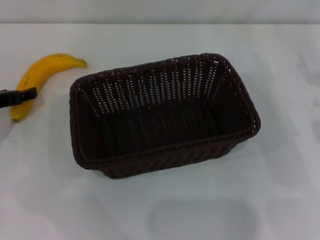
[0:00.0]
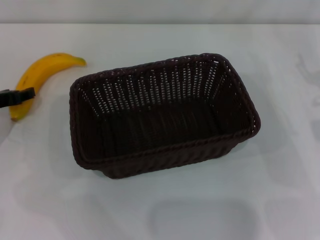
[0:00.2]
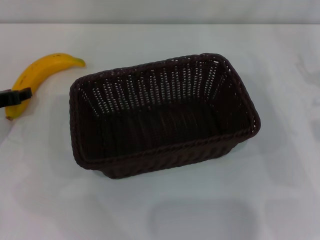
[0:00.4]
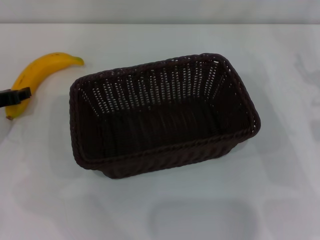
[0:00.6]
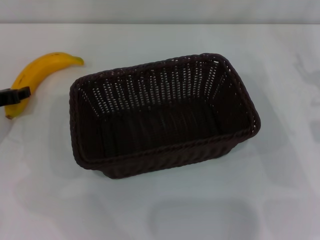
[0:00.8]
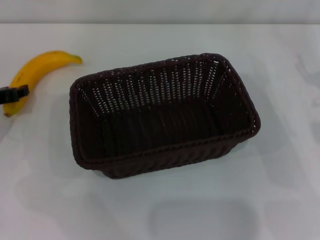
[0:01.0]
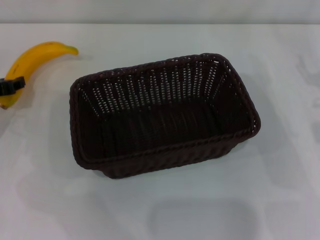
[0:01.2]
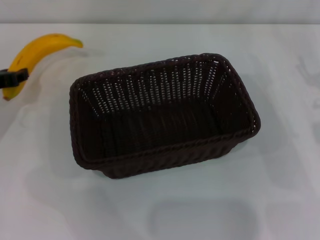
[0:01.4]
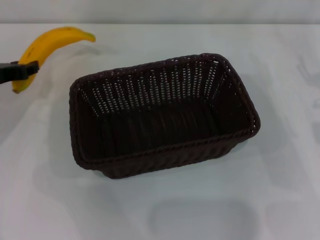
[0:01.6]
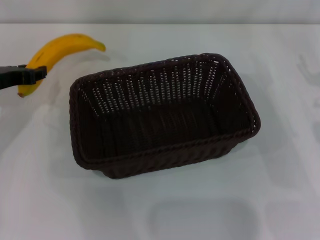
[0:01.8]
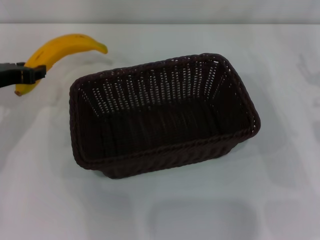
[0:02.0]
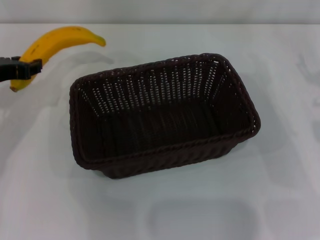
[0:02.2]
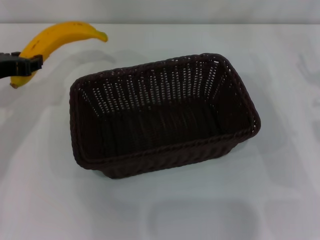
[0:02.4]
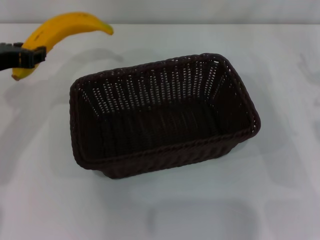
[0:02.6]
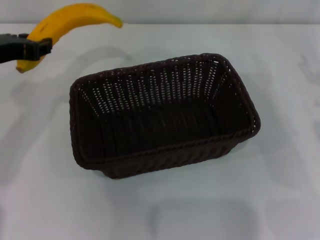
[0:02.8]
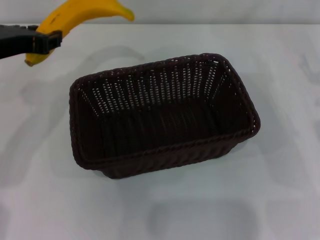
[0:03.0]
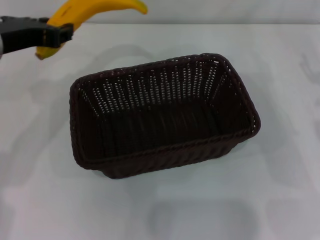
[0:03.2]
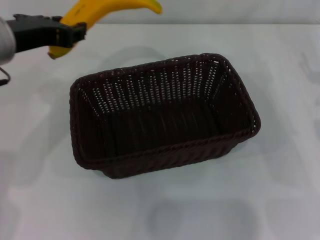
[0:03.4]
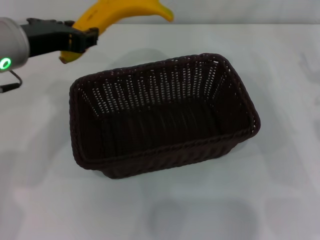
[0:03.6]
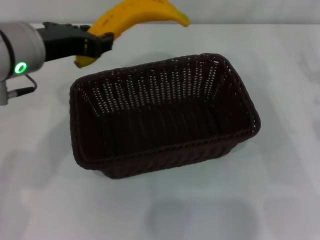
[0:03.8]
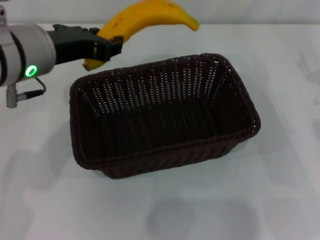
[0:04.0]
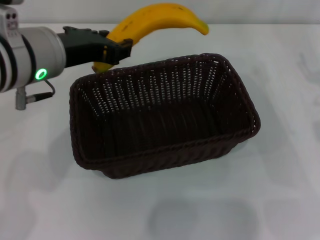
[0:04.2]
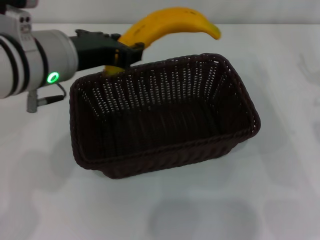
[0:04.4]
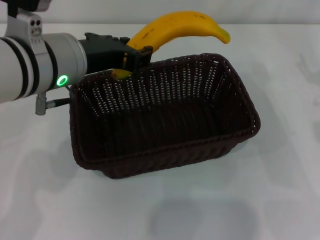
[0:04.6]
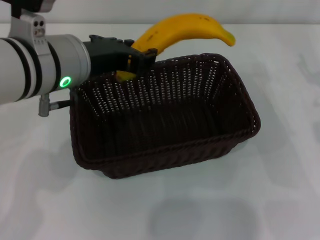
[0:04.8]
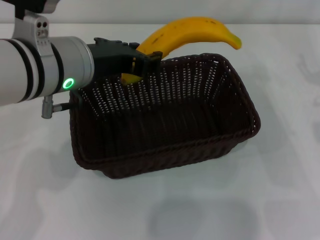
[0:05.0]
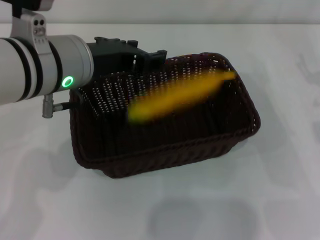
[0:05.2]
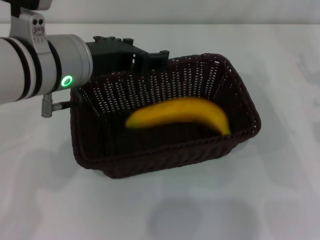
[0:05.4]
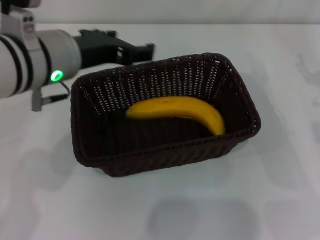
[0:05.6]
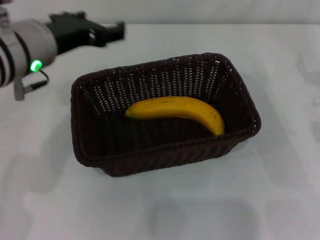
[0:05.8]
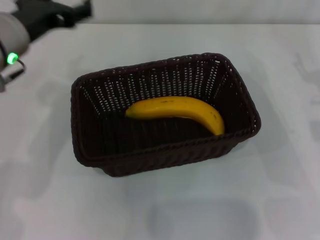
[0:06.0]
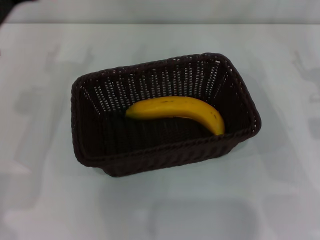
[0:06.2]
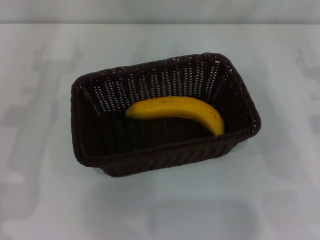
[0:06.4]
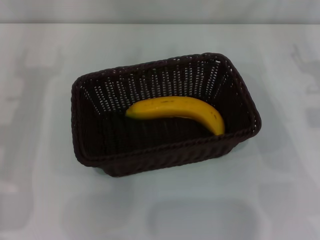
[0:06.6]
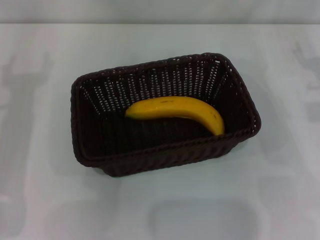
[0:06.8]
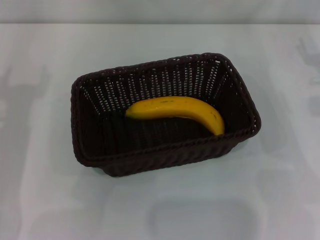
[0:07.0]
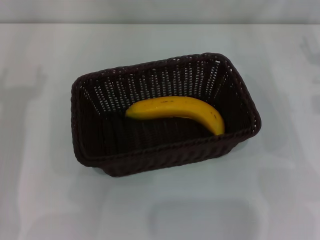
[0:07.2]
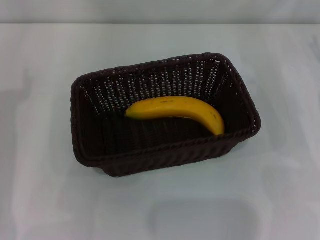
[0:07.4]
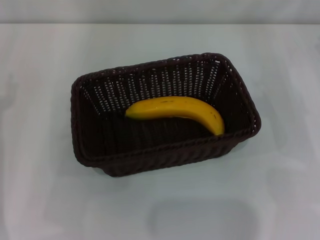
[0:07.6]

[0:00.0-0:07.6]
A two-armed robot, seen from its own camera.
Step, 0:02.2 to 0:05.6: Place the banana into the dark basket with the left gripper.
0:00.0 to 0:01.6: The left gripper closes.
0:01.6 to 0:03.0: The left gripper travels upward and to the right by roughly 15 cm.
0:03.0 to 0:04.6: The left gripper shifts some 10 cm to the right.
0:04.6 to 0:06.0: The left gripper goes about 5 cm to the left, and opens its fingers.
0:06.0 to 0:07.6: The left gripper is displaced to the left, backward and downward by about 15 cm.
